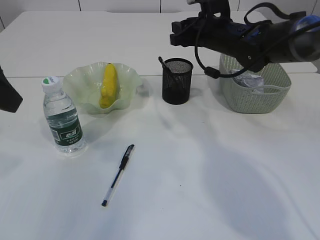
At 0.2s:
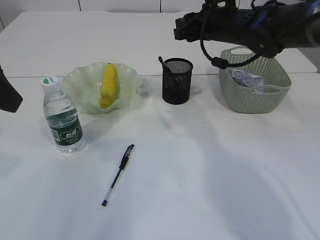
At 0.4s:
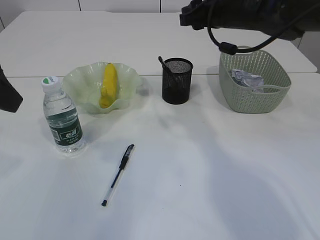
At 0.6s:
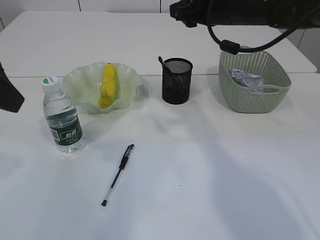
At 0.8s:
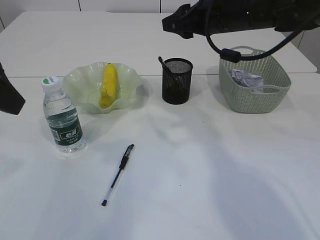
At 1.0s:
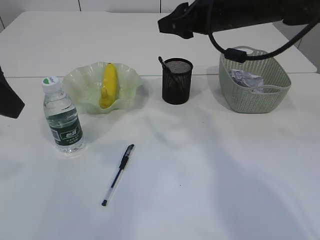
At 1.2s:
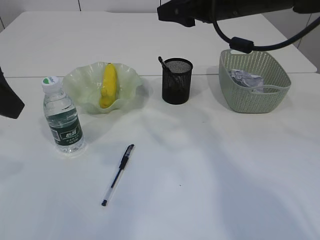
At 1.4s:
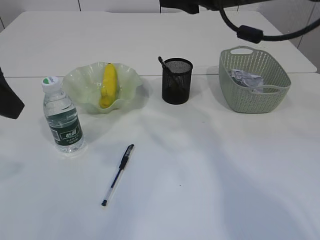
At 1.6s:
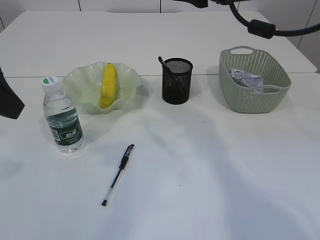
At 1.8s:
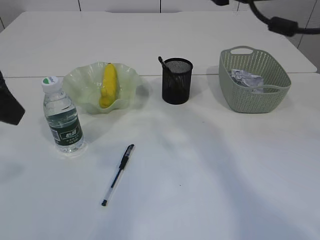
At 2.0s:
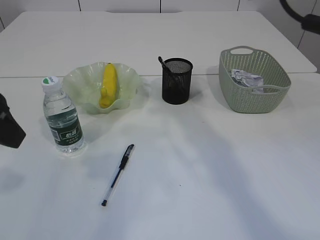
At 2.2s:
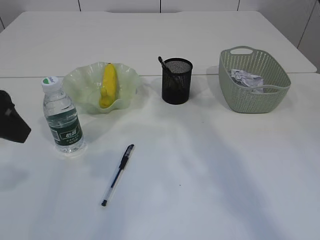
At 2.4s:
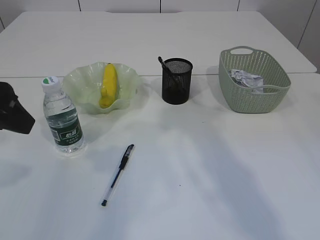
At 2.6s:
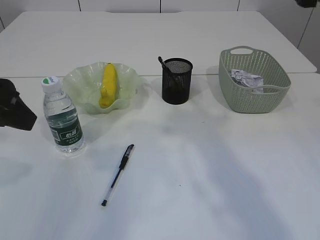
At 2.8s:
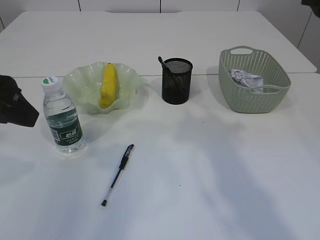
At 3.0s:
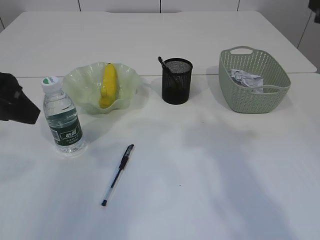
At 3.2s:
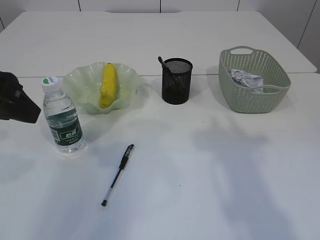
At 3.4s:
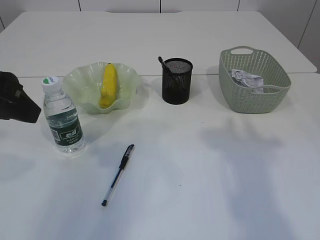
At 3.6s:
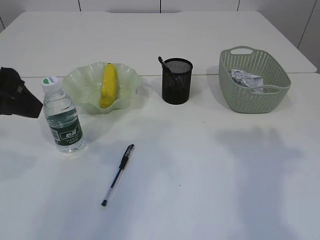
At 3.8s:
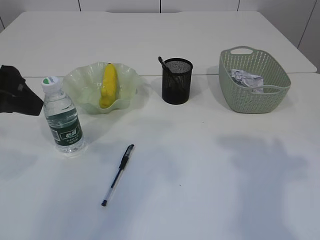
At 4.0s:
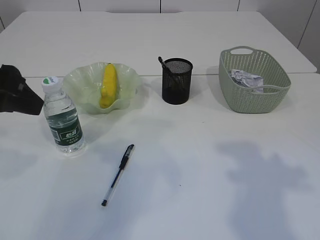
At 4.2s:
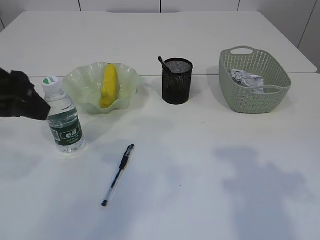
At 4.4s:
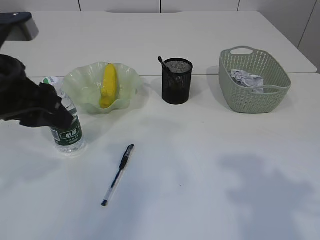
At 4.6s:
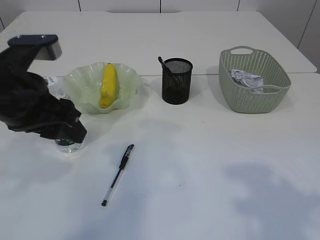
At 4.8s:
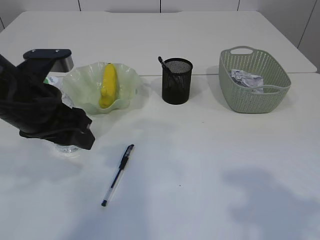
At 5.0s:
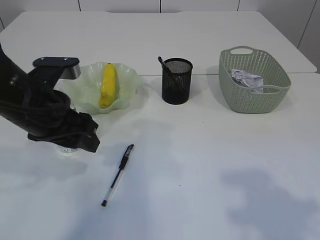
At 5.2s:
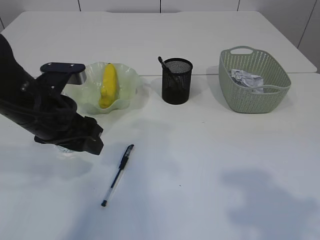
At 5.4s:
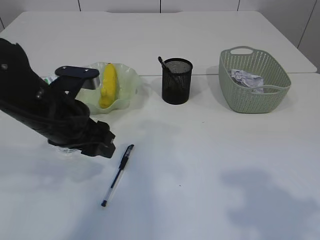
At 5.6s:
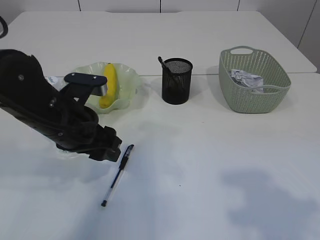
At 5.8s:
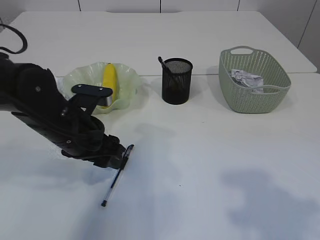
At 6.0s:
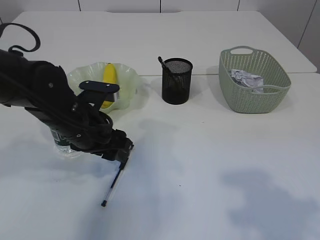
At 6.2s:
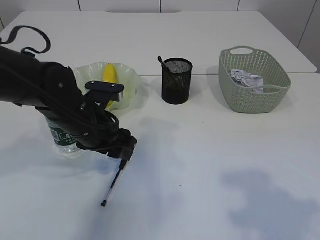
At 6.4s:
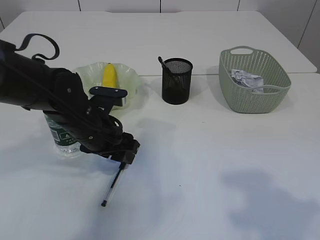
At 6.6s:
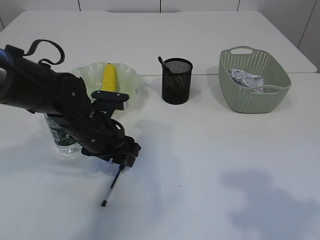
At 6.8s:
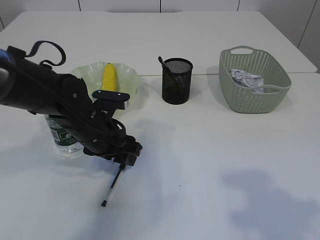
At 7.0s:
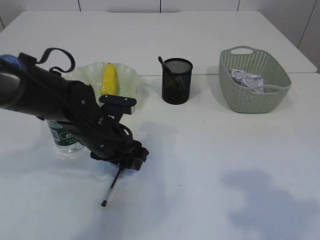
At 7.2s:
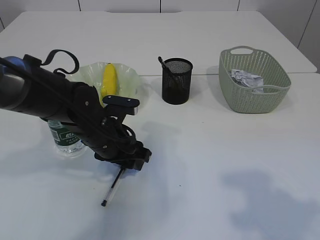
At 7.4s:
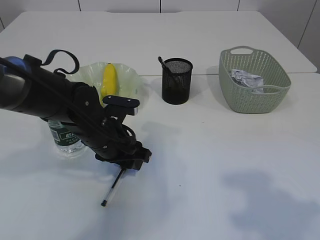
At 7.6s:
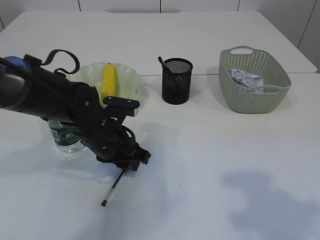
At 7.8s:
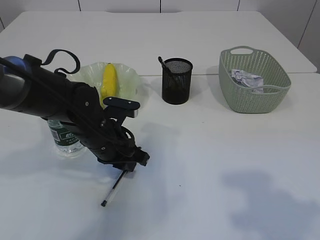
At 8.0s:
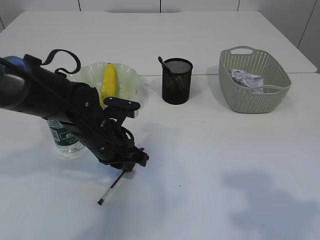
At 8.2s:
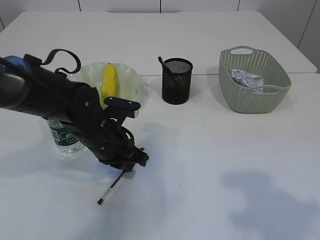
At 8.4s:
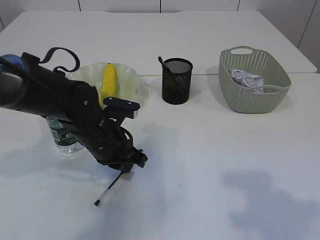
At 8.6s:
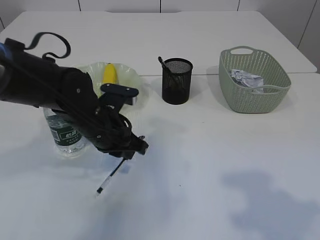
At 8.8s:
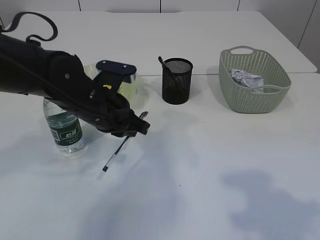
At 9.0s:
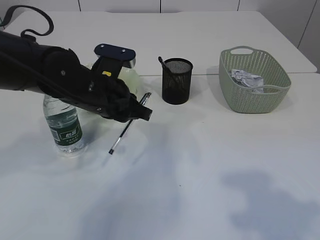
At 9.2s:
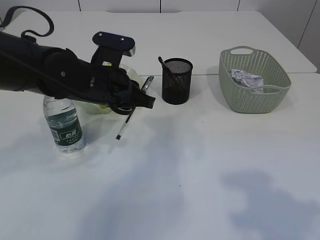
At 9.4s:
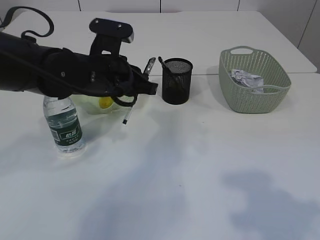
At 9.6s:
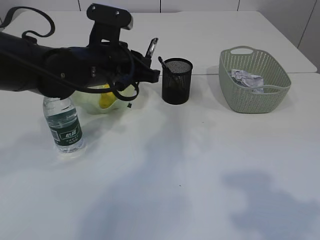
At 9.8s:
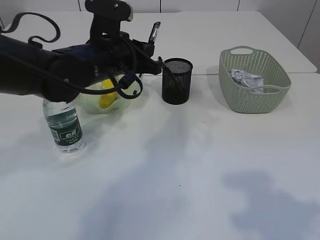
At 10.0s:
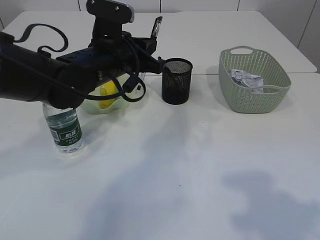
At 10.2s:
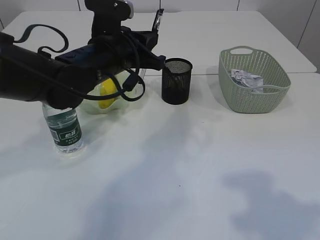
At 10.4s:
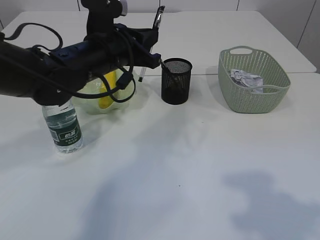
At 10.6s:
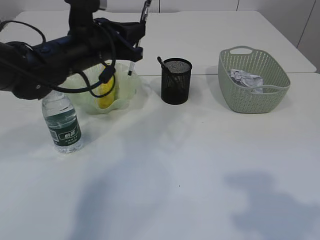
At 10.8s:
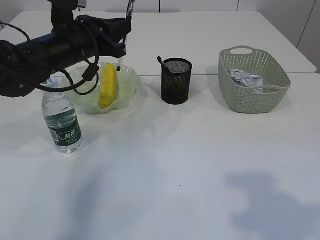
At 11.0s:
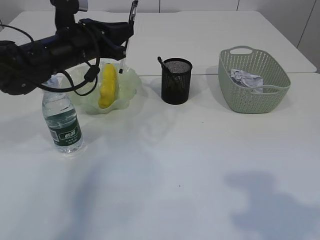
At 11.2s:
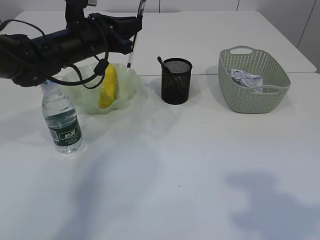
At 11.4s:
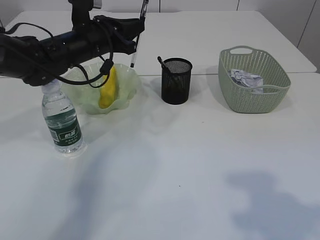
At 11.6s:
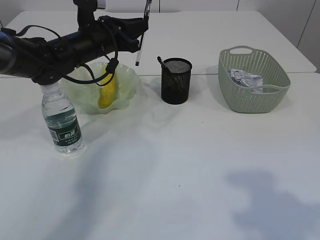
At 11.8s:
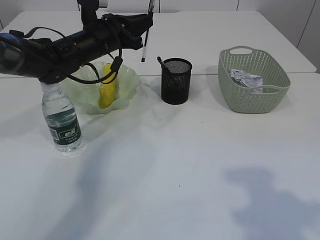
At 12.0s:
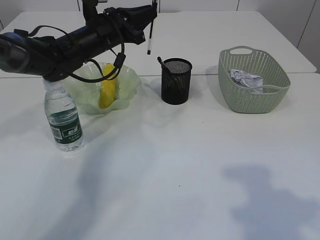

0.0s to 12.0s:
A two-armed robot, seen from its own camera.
Step, 0.4s to 8.8s: Pick up the pen with left arm.
0.0s to 1.6s: The right gripper is displaced upward and backward by about 15 cm.
1.6s to 3.0s: The right gripper shifts roughly 20 cm backward and to the right.
4.4s to 6.0s: The left gripper is displaced downward, forward and to the right by about 15 cm.
6.0s to 7.6s: The left gripper moves some 5 cm.
7.6s to 9.0s: The left gripper goes approximately 10 cm upward, and closes its fingers.
9.0s to 10.4s: The left gripper moves roughly 5 cm.
10.4s to 12.0s: The left gripper travels forward by roughly 10 cm.

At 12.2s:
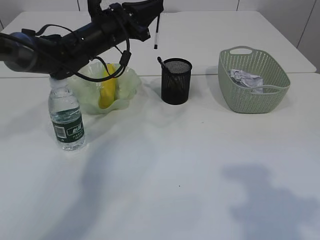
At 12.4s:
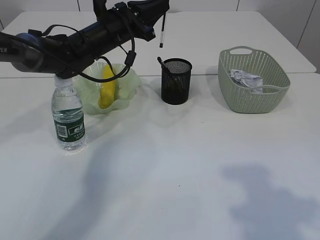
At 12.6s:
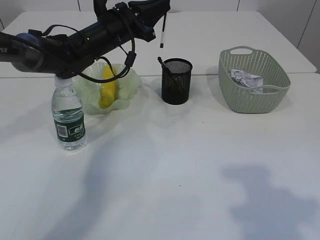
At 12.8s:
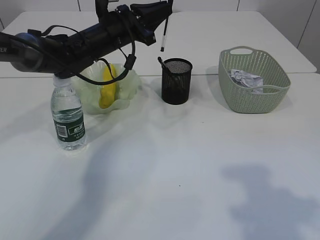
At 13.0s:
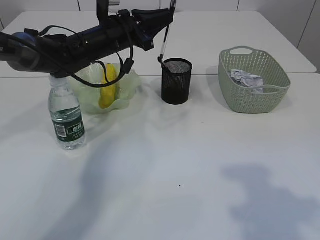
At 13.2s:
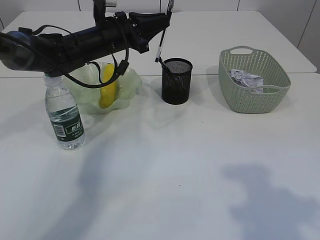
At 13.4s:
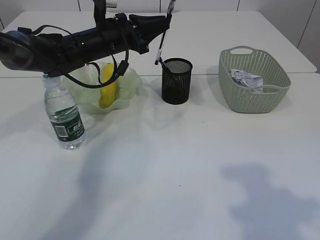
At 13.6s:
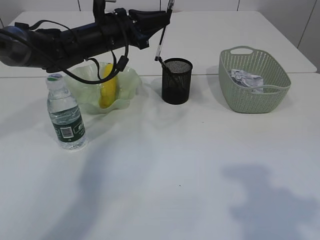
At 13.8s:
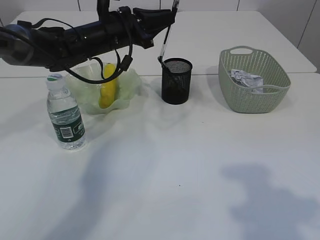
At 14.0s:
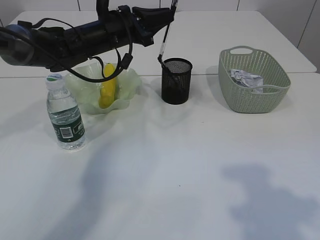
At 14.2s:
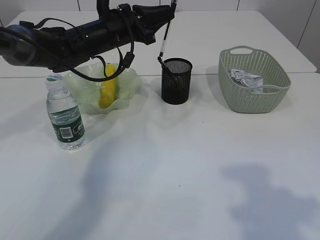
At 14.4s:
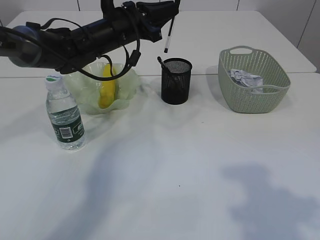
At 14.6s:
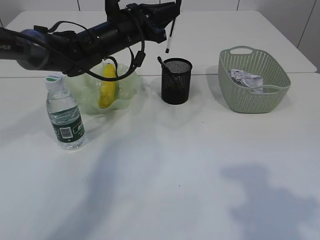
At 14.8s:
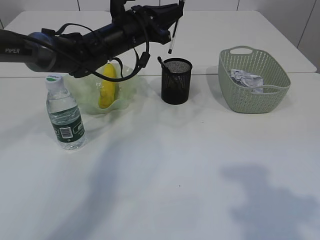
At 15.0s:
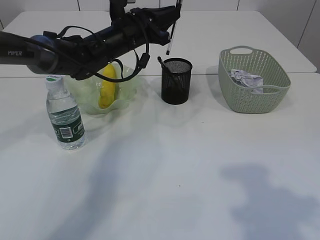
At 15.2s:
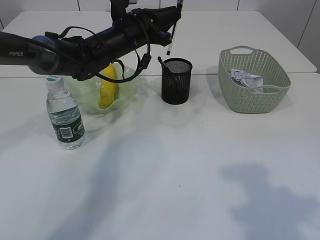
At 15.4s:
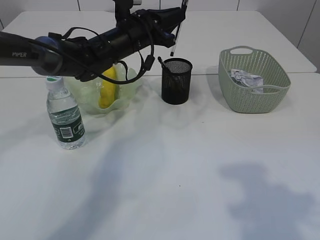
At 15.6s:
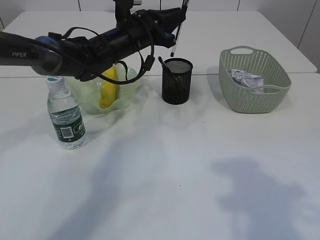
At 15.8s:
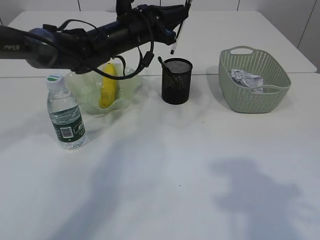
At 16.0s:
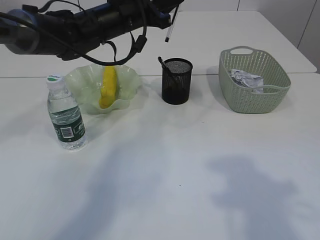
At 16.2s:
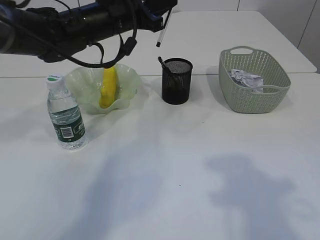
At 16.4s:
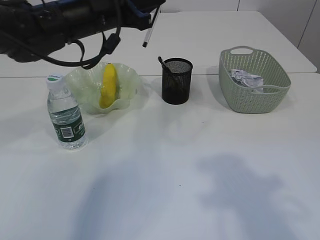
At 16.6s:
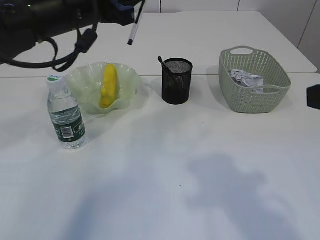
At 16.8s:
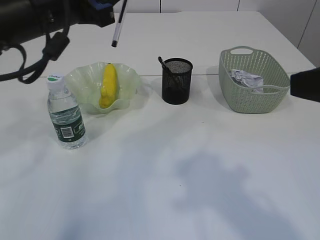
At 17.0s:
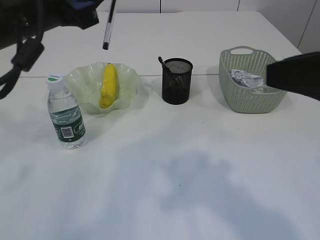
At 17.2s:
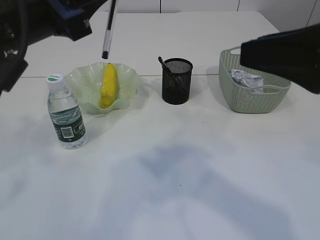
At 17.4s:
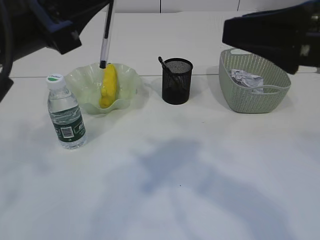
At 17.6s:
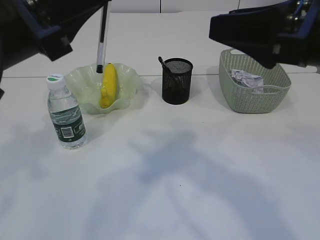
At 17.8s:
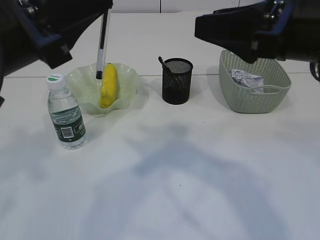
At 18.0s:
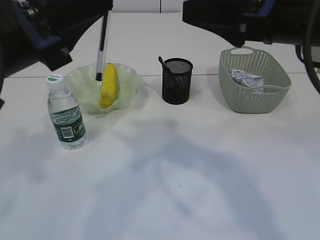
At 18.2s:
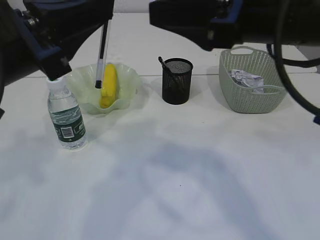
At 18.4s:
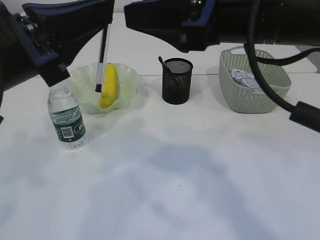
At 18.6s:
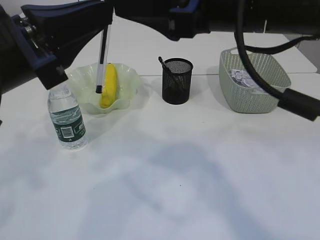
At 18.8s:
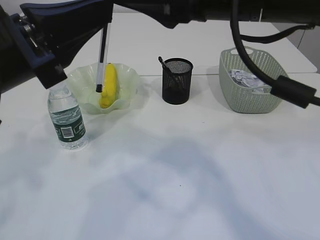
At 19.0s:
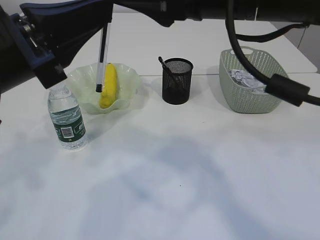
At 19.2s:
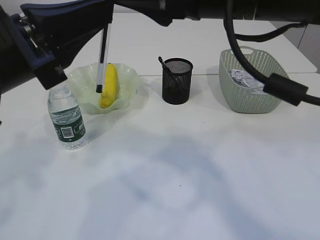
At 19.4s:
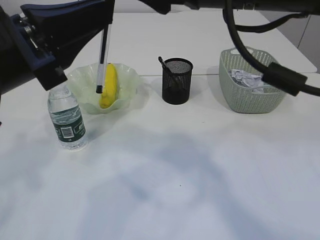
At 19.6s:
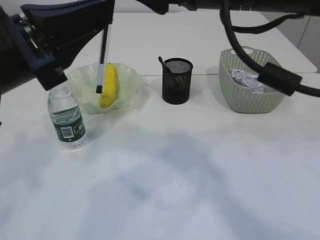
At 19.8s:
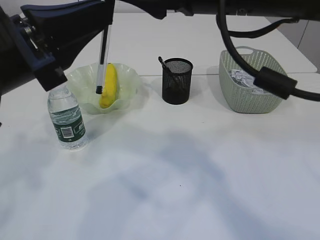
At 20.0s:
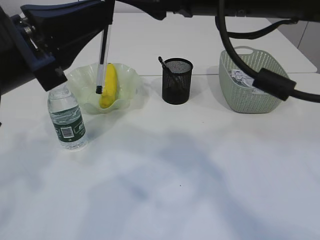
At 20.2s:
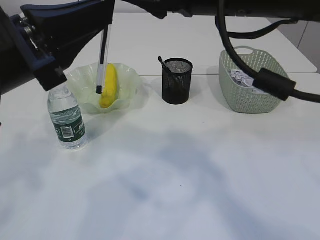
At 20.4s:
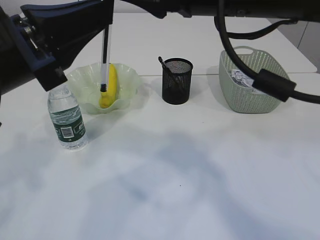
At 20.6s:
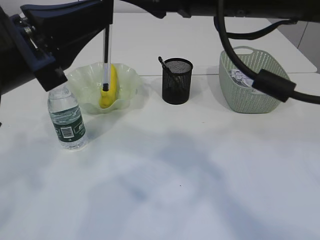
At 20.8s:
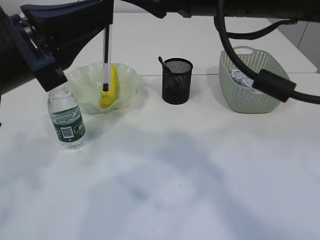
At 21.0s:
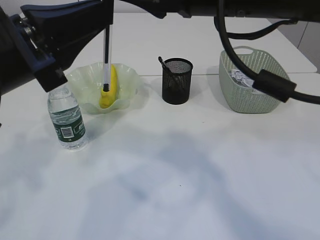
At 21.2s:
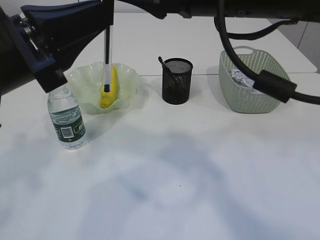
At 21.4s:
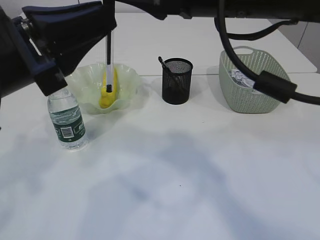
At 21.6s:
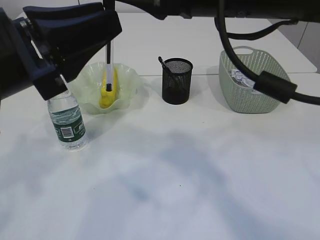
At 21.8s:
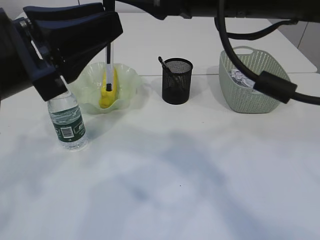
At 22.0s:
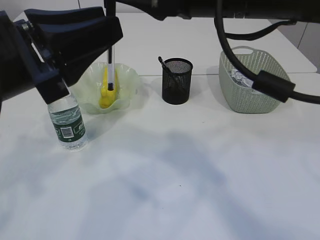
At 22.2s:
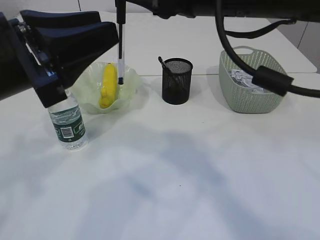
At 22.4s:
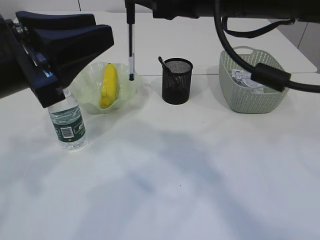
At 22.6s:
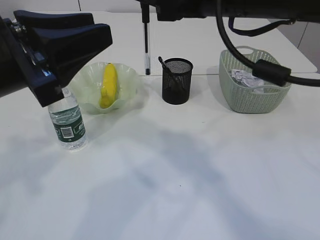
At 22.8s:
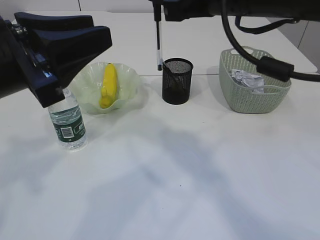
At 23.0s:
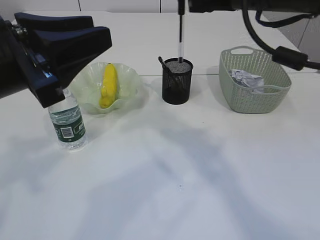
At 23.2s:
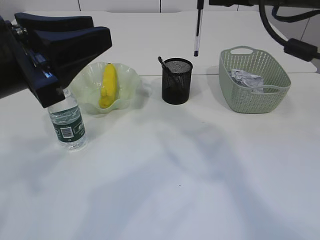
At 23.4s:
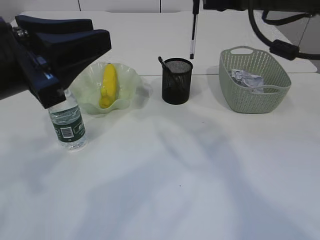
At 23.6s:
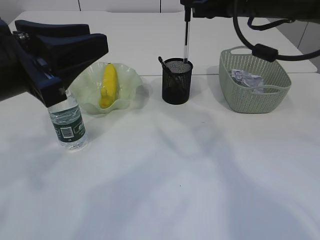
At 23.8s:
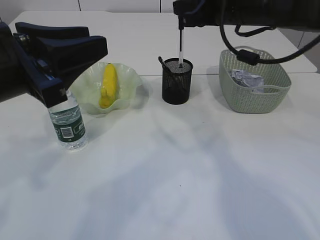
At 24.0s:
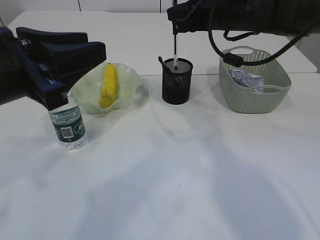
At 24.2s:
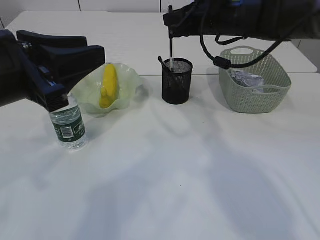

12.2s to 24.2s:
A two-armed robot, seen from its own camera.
Step, 12.2s to 22.4s: transfer the pen to the right arm.
12.2s to 15.2s: The grippers make only small movements.
15.2s to 16.6s: The left gripper is displaced backward, upward and to the left by approximately 15 cm.
16.6s to 18.2s: The right gripper moves to the left and forward, approximately 15 cm. Meanwhile the left gripper shifts some 15 cm backward.
18.2s to 19.8s: The right gripper changes place by some 5 cm.
19.8s to 21.2s: The right gripper closes.
21.2s to 22.6s: The left gripper opens up.
22.6s to 24.2s: The right gripper is displaced forward and downward by approximately 20 cm.
